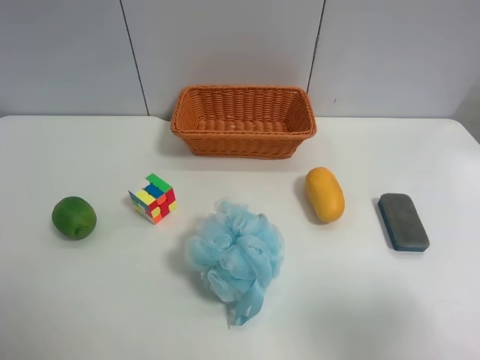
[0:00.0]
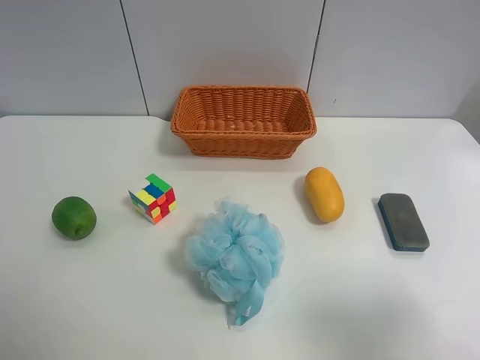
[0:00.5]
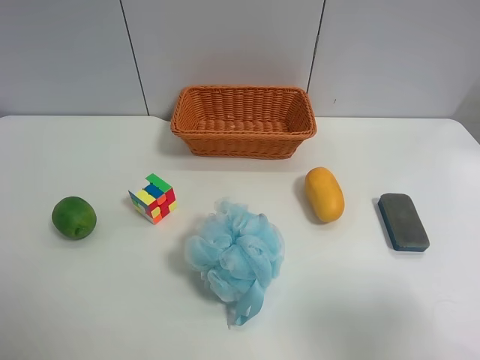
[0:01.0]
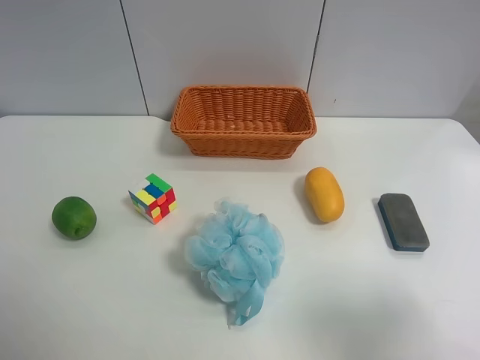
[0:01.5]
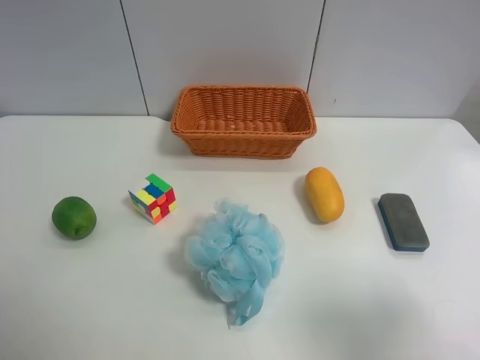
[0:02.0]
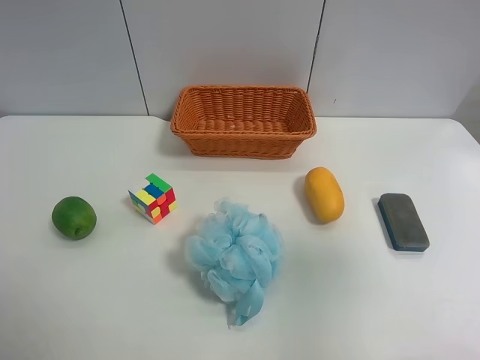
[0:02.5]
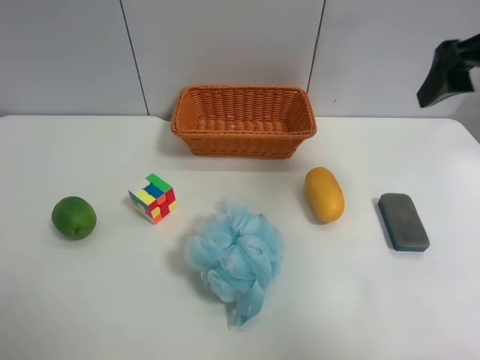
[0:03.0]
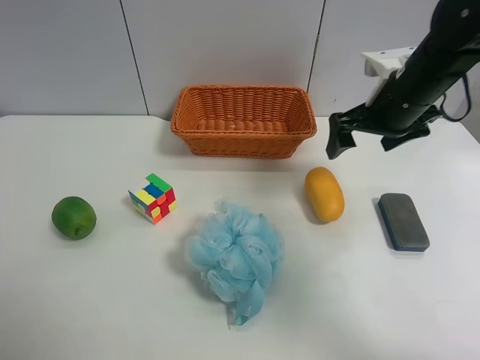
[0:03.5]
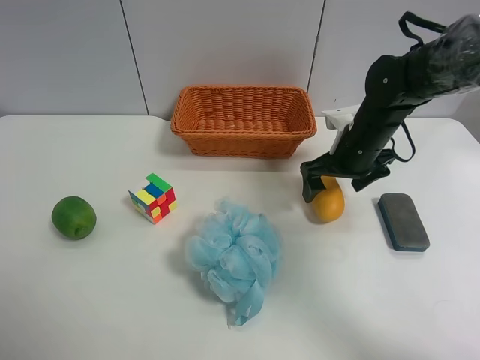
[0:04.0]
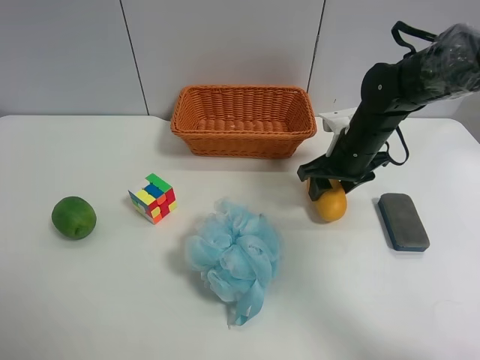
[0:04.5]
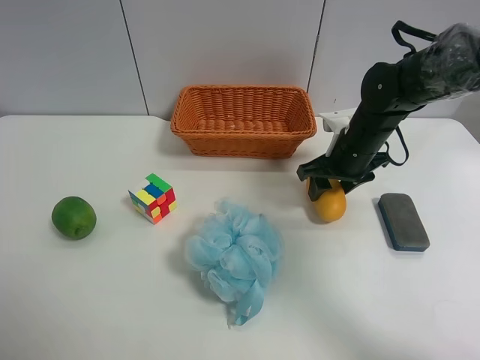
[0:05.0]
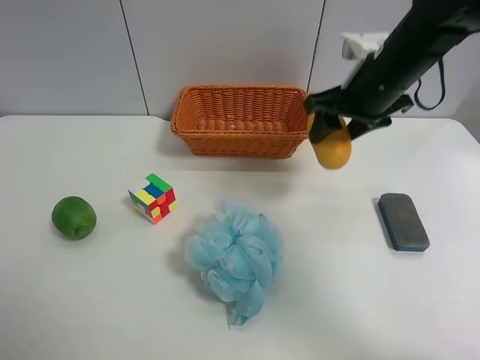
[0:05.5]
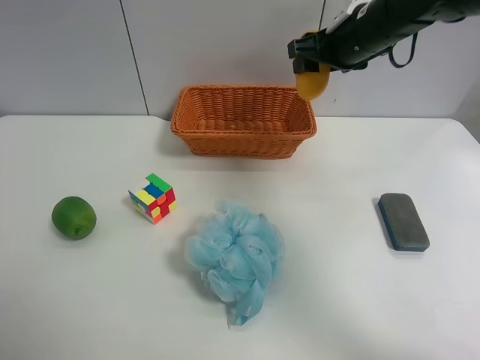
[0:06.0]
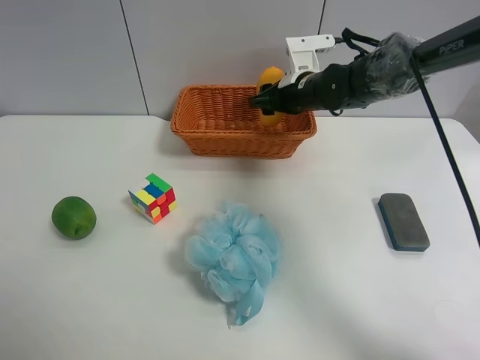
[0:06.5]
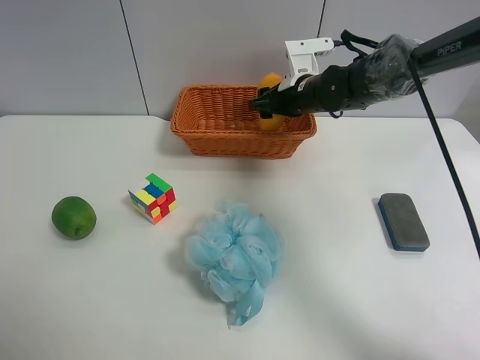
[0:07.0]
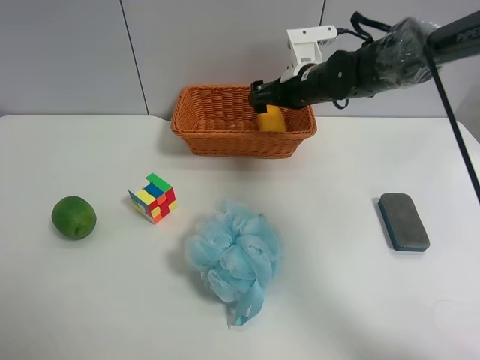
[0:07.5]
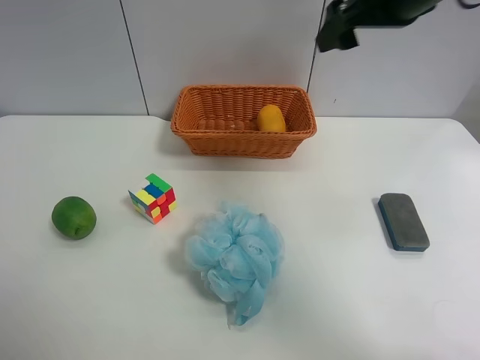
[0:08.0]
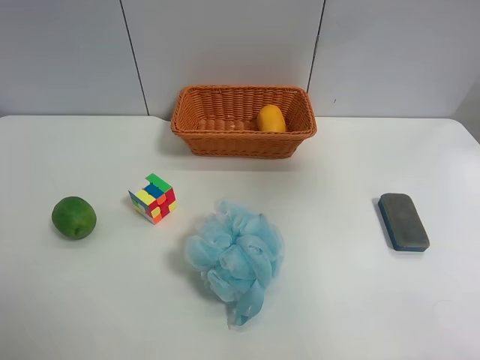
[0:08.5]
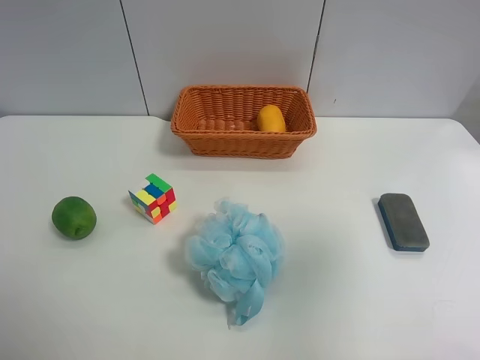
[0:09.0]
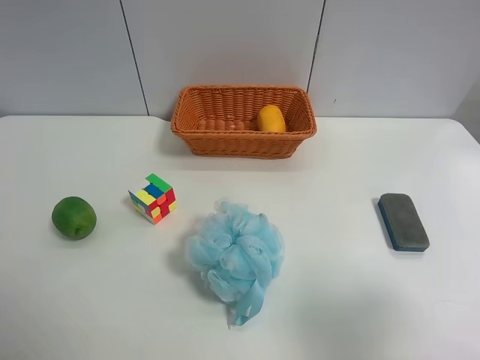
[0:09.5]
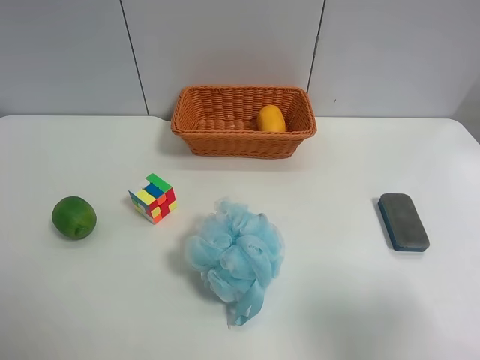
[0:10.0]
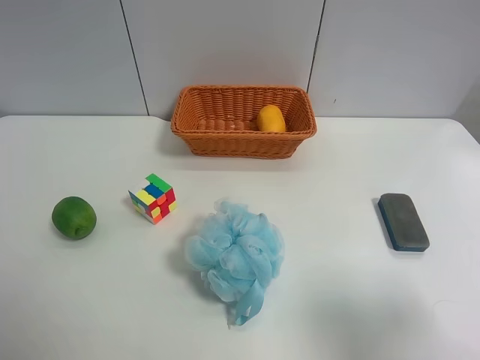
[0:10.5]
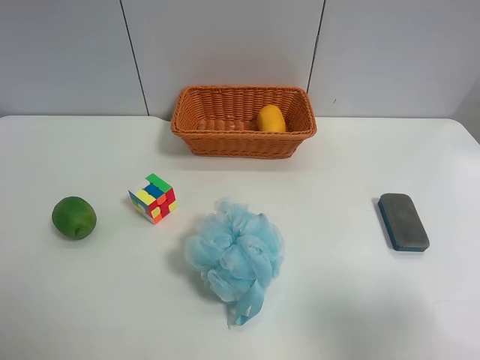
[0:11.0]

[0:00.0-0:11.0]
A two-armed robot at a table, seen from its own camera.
Task of the whole recording: Randomly grab green lemon or mangoes from the table and put them in a basket.
Step, 0:00.0 to 0:04.5: Grasp the mango with the right gripper.
Step, 0:05.0 to 0:07.5: Place the mango into the basket with the right gripper.
0:00.0 to 0:02.0: Both grippers stay put.
0:02.0 to 0:03.5: The right gripper moves forward, about 35 cm.
0:03.5 to 0:05.5: The right gripper closes.
0:05.5 to 0:07.5: The right gripper travels forward and downward by approximately 10 cm, and opens its fingers.
0:07.5 to 0:09.0: The right gripper heads backward, covering roughly 40 cm.
0:09.0 to 0:11.0: The right gripper shifts some 10 cm downward.
